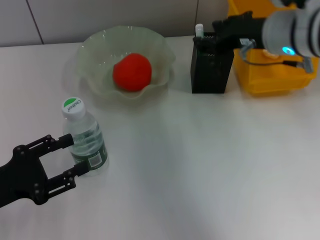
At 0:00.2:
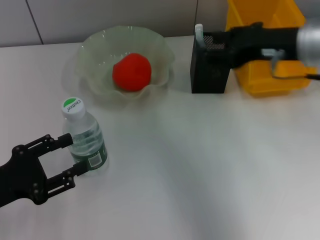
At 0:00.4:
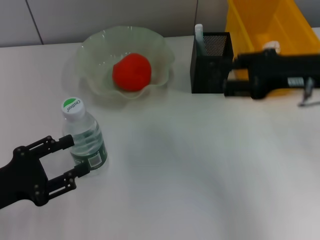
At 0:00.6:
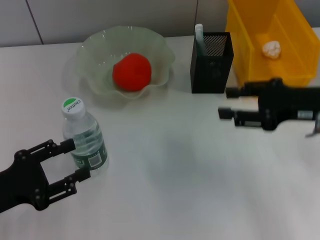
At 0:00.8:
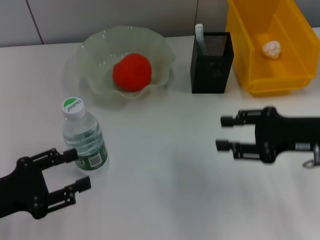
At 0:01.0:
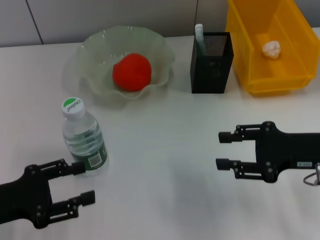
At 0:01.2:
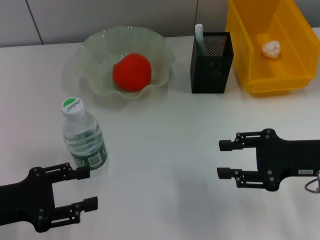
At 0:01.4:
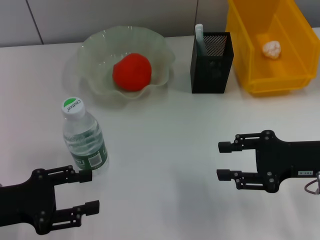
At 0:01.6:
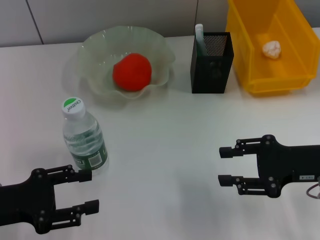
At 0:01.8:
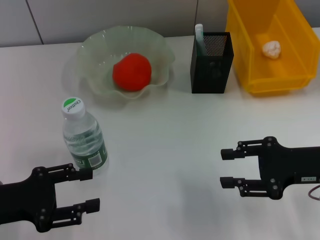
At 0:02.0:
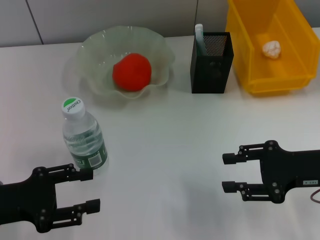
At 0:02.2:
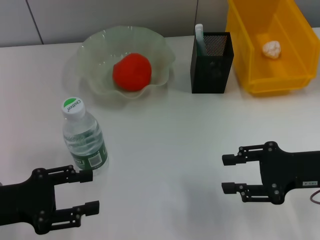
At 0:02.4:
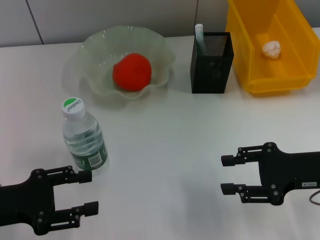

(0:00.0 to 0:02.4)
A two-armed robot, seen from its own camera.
0:00.0 - 0:01.2: The right gripper moves backward, downward and to the right, approximately 15 cm.
0:01.2 - 0:02.4: Both grippers stay about where they are.
